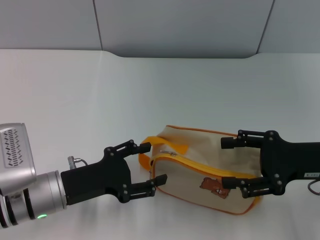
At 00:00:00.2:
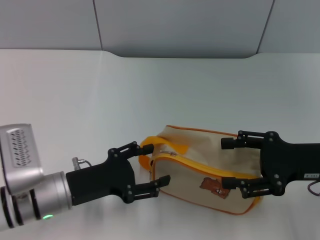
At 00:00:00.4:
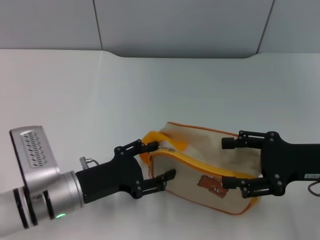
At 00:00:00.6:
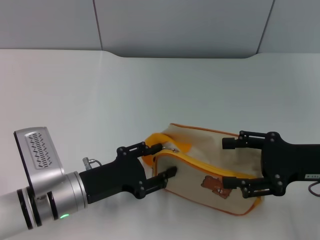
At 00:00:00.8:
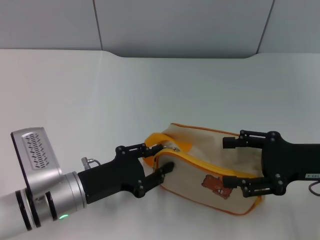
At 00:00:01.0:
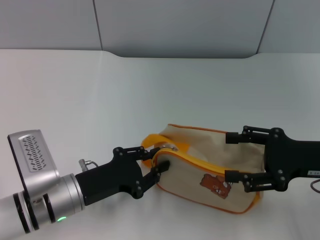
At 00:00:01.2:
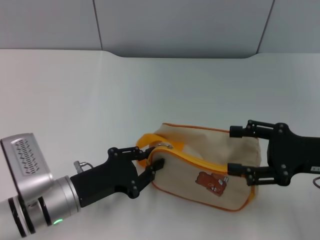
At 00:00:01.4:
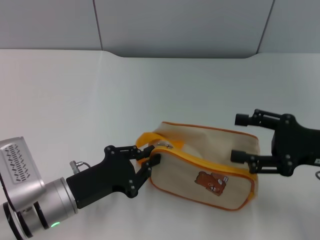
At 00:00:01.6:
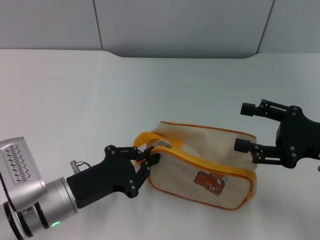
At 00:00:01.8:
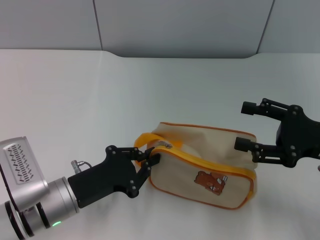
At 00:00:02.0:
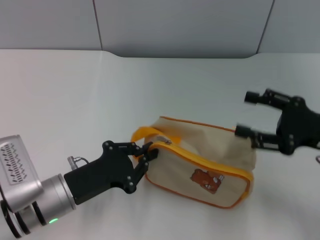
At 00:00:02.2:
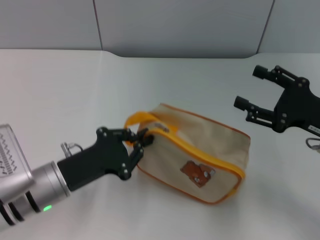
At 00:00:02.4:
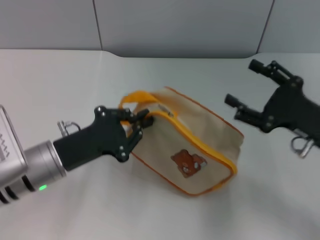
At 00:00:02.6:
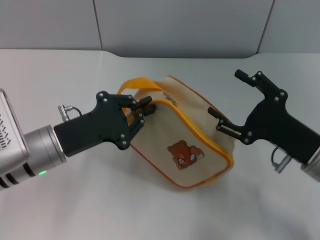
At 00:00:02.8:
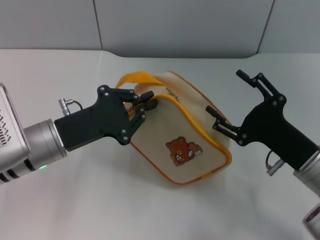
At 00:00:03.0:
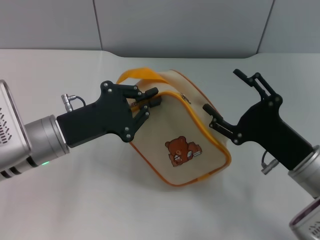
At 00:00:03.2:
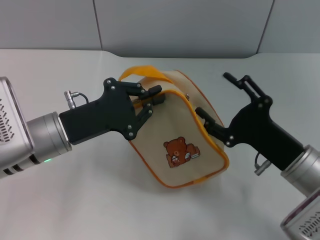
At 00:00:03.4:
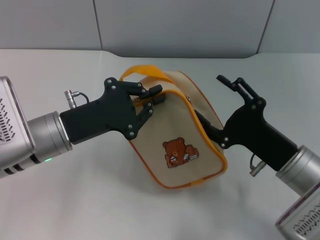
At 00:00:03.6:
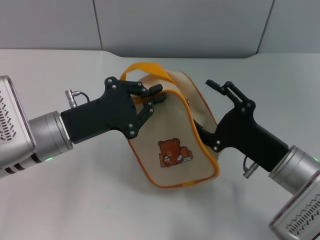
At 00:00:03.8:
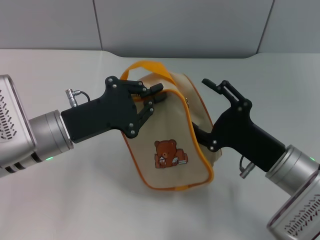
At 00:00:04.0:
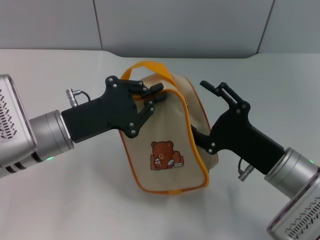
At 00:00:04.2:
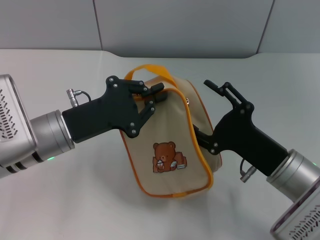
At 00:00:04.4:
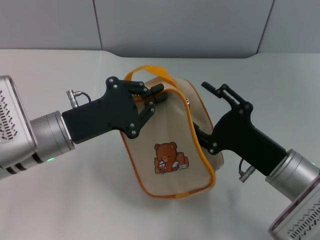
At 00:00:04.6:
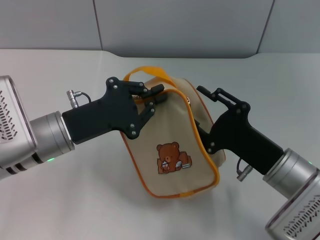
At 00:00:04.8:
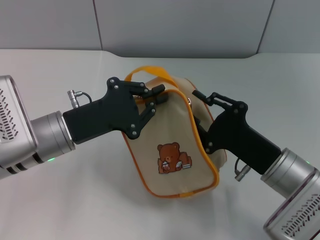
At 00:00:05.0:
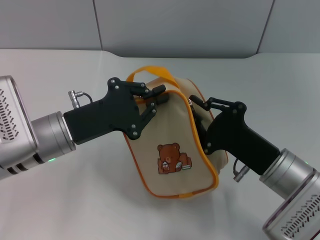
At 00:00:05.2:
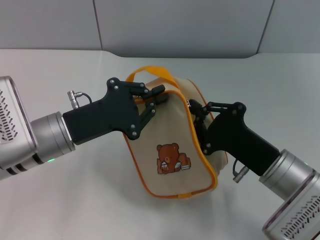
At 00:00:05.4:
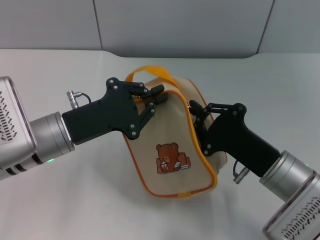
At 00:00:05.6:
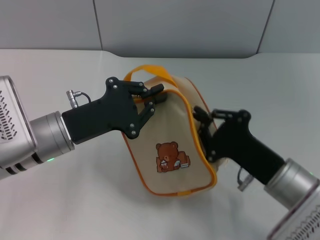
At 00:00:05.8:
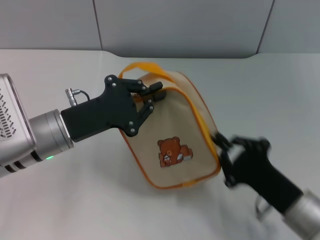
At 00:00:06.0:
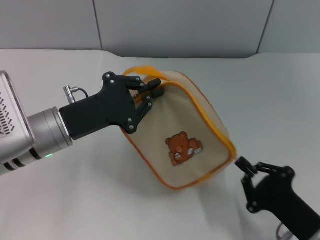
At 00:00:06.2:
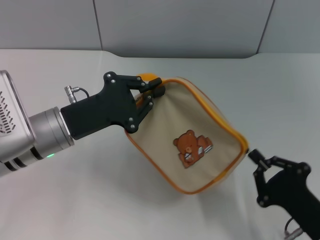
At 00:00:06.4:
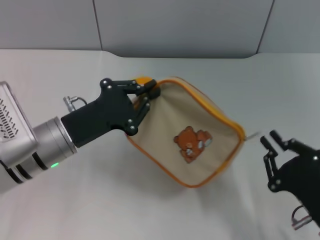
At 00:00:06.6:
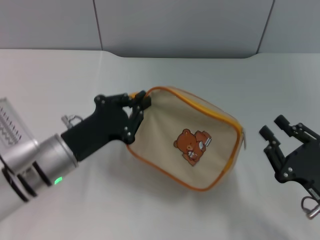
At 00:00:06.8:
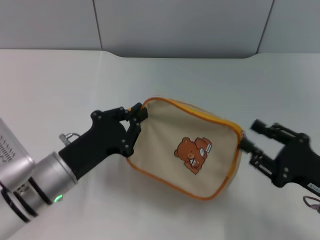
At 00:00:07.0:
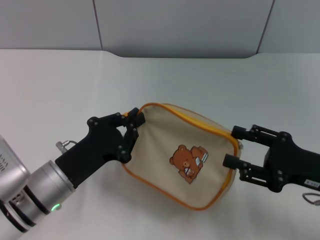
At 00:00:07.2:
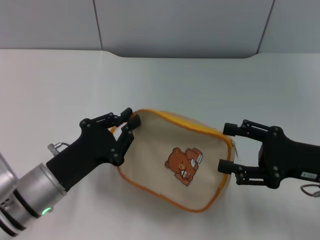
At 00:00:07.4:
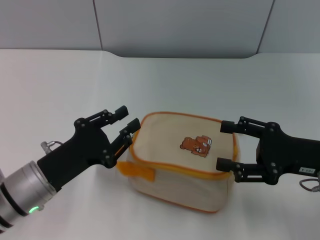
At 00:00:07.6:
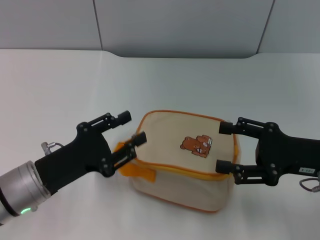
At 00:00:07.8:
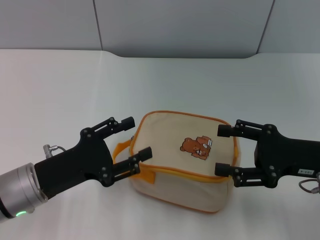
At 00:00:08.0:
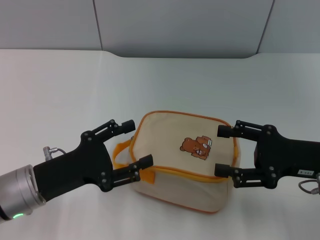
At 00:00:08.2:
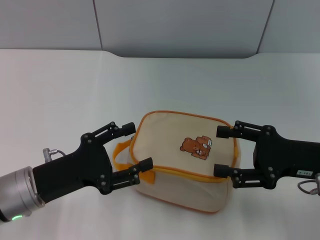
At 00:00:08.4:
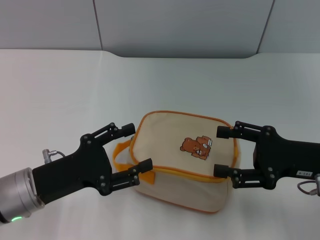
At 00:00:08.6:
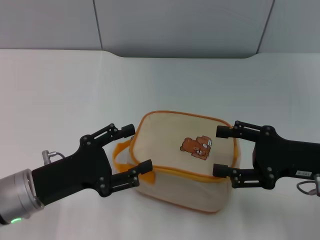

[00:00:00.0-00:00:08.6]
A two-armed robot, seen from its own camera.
Step, 00:00:00.0 to 00:00:02.6: Pick up the bag with left gripper.
Step, 00:00:02.8 to 00:00:06.4: Unzip the zipper of bag with right gripper.
Step, 00:00:06.6 to 00:00:07.4: Place the bag on the table with left gripper.
00:00:00.0 to 00:00:01.4: The left gripper closes.
00:00:01.4 to 00:00:02.8: The left gripper heads upward and forward, covering some 10 cm; the right gripper goes roughly 10 cm to the left and downward.
00:00:04.4 to 00:00:05.8: The right gripper shifts approximately 5 cm backward, and closes up.
00:00:05.8 to 00:00:07.2: The right gripper is displaced upward, forward and to the right by roughly 10 cm, and opens up. Meanwhile the left gripper goes roughly 10 cm backward and downward.
00:00:07.2 to 00:00:08.6: The left gripper opens its fingers.
